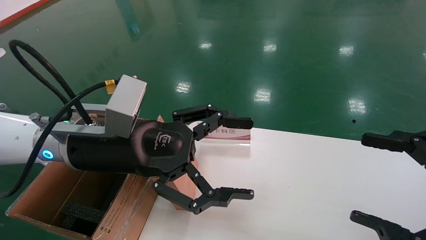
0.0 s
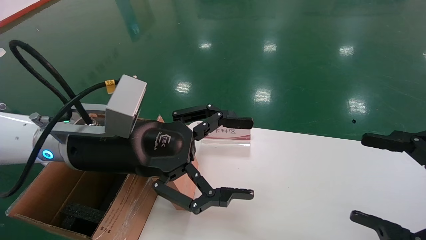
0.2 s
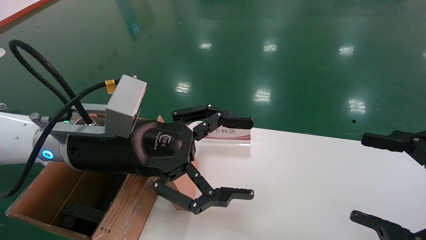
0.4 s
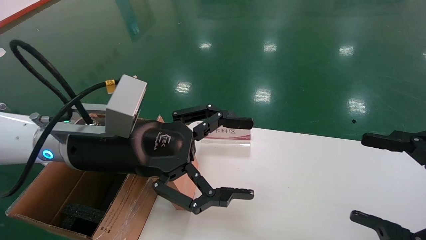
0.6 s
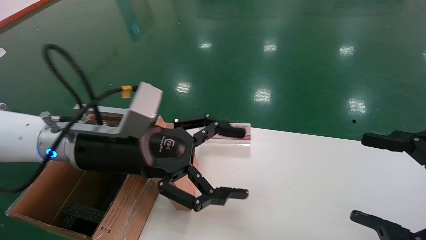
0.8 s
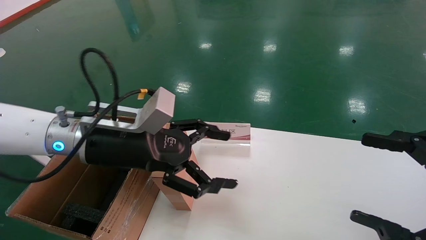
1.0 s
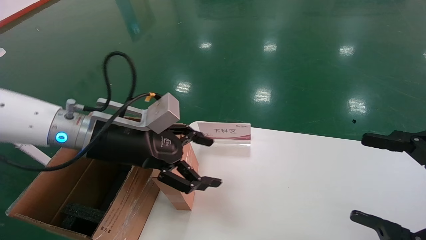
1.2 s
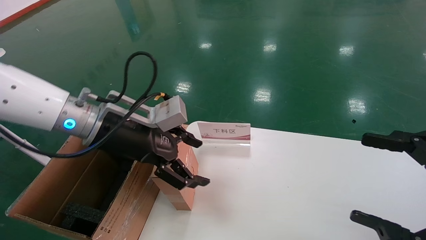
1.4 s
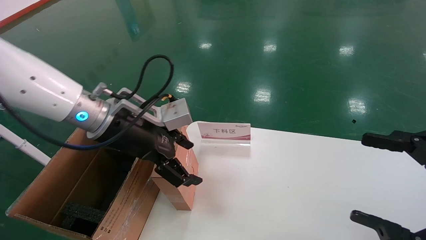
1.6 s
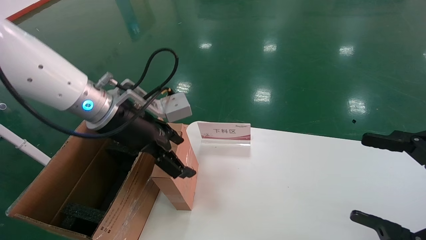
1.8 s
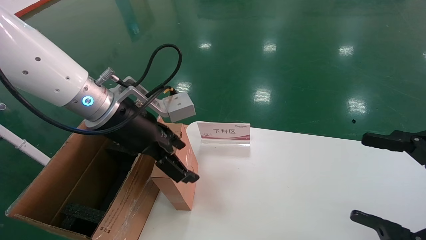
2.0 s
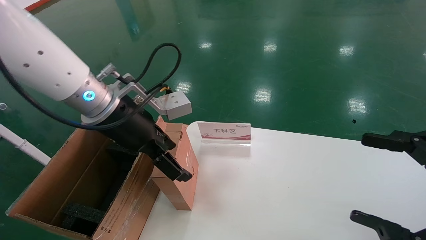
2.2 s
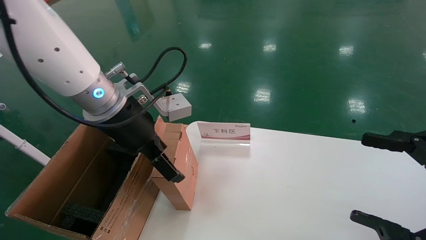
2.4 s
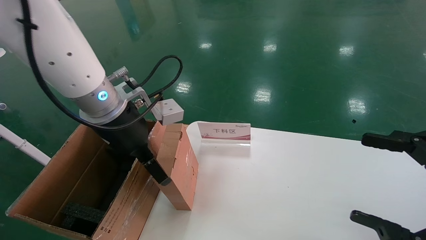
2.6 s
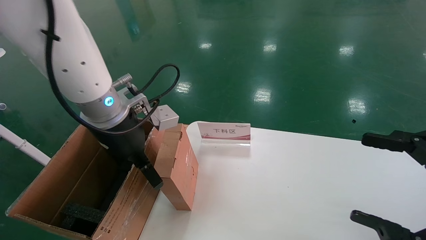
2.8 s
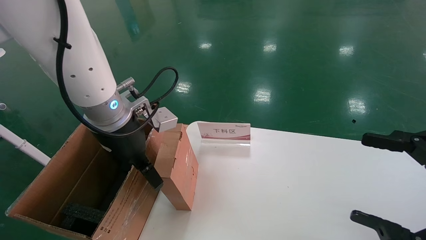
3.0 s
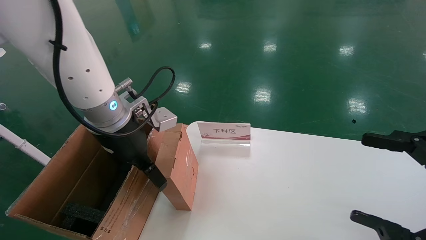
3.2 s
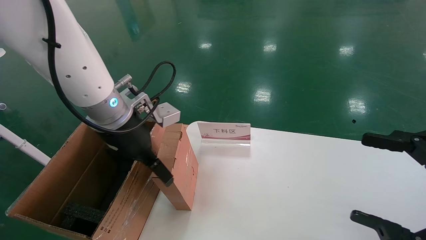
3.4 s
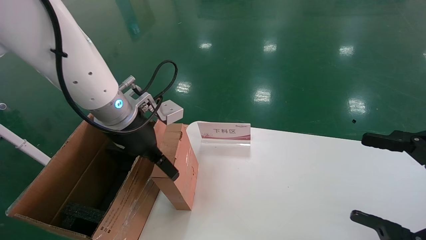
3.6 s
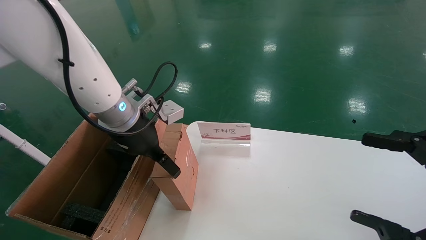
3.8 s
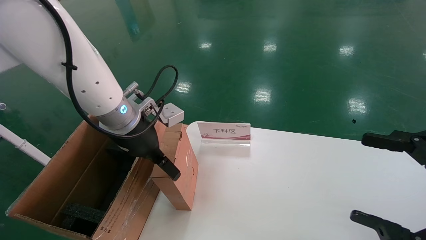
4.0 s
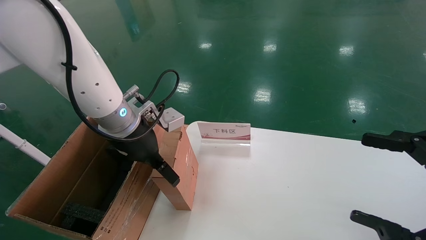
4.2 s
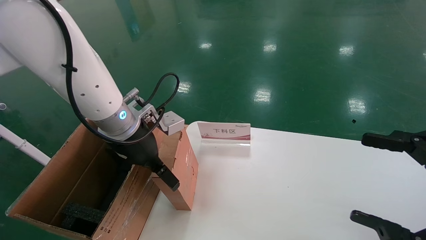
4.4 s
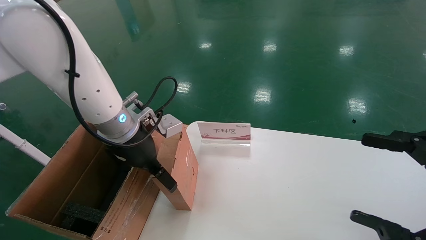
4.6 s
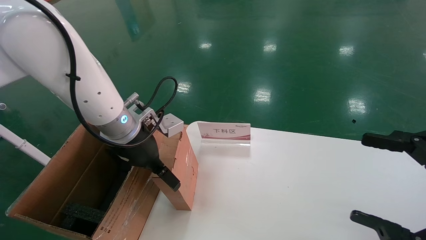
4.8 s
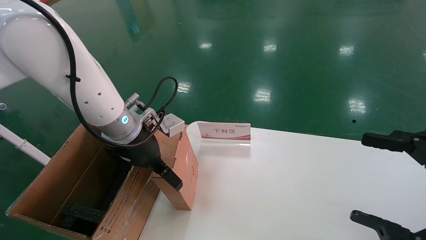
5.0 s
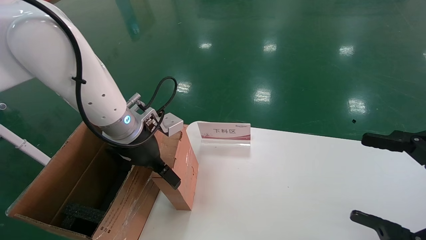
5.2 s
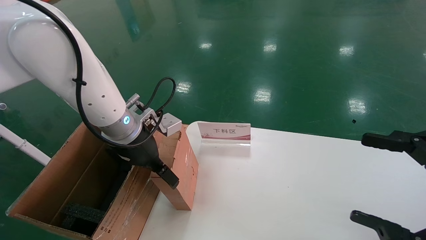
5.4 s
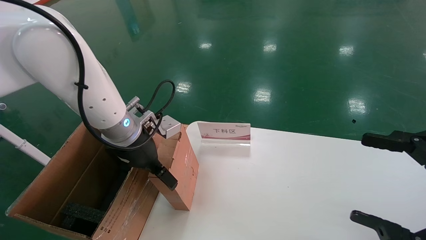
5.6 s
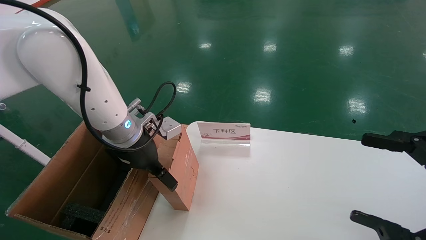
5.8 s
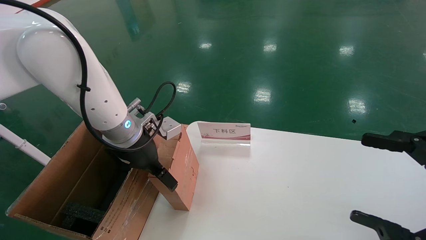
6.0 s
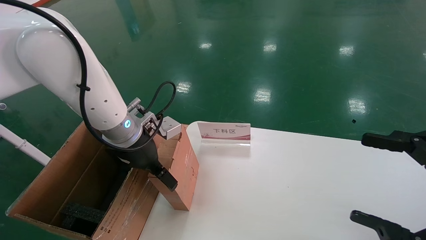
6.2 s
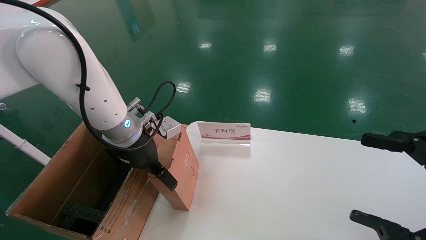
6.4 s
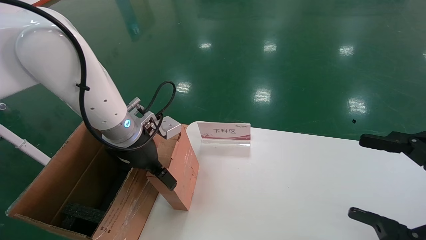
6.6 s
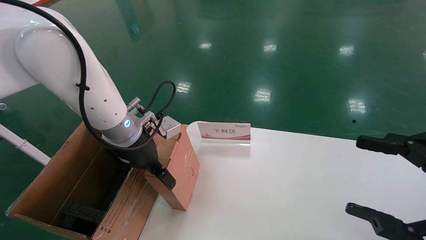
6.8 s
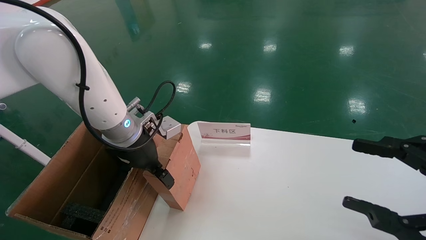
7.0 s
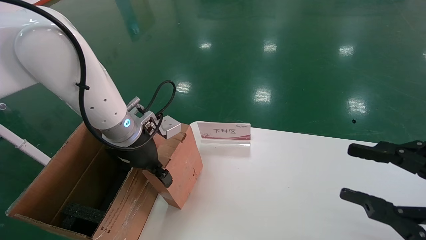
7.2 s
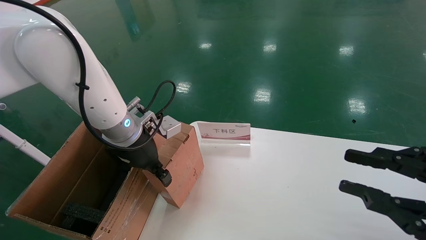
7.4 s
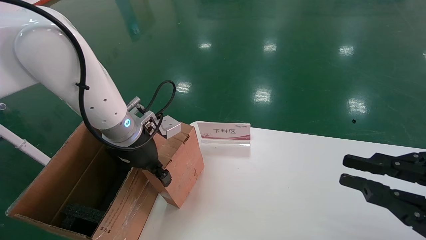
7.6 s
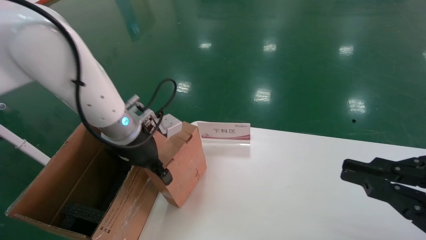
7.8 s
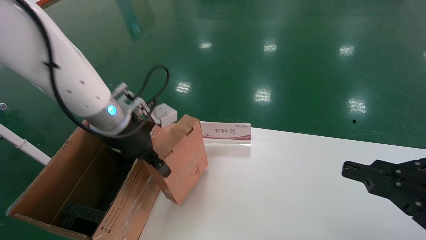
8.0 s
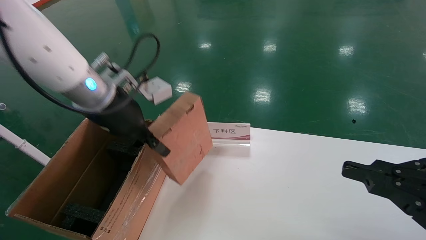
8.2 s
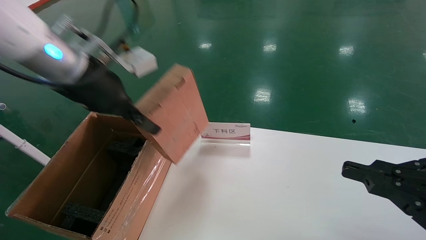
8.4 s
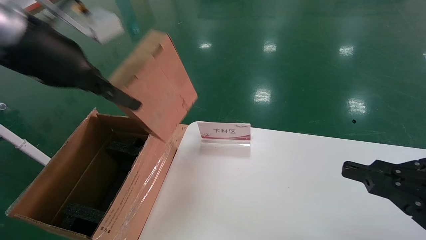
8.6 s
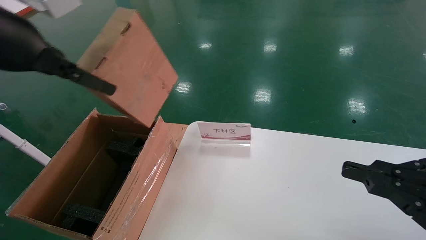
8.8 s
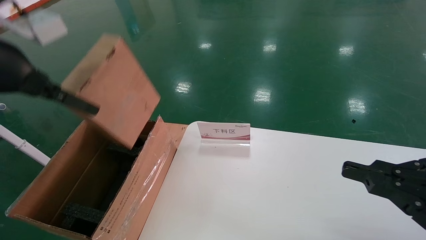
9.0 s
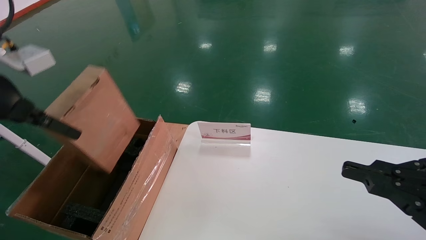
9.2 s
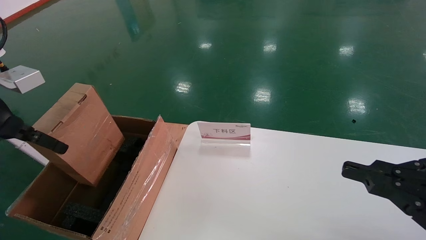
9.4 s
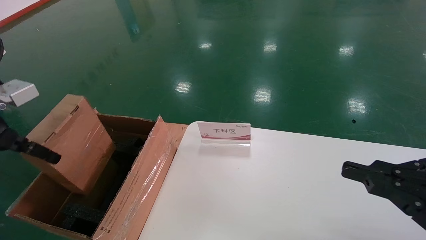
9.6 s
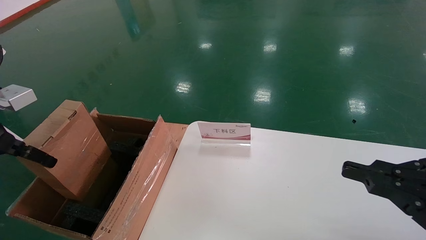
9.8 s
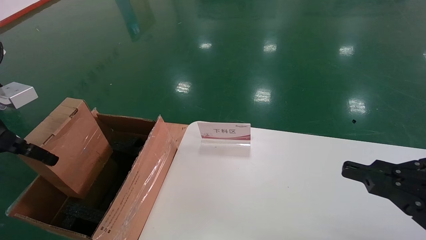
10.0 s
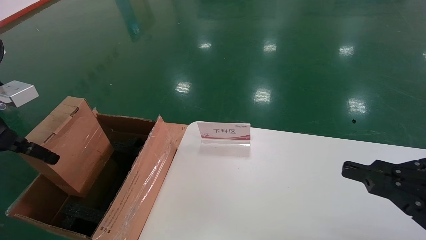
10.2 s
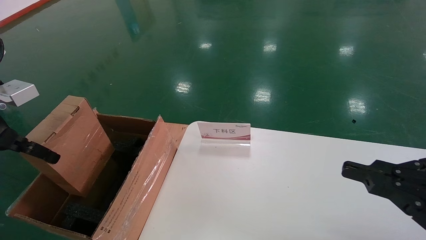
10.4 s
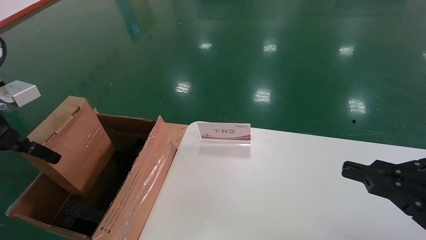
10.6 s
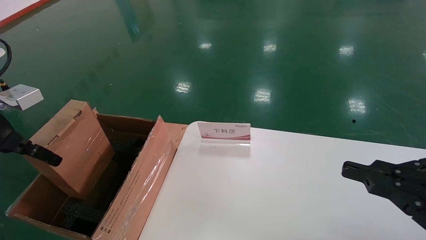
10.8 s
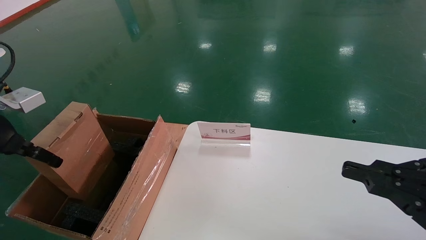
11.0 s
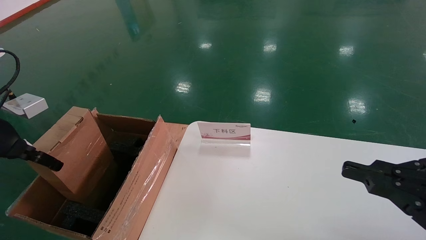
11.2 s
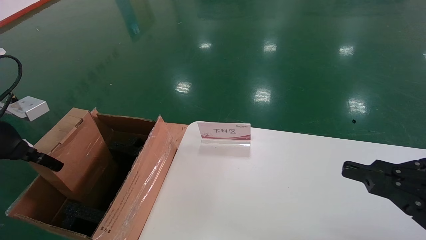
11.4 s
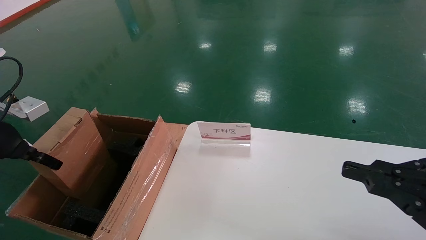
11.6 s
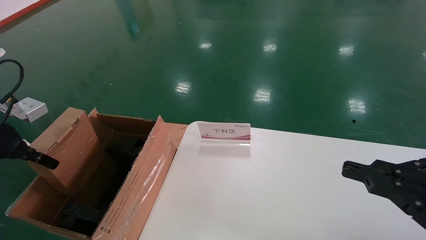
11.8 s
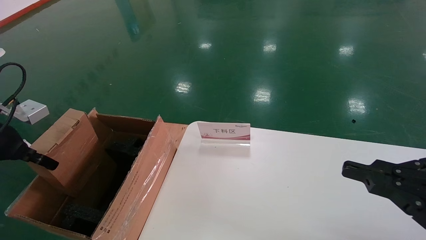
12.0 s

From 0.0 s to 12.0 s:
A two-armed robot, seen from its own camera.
Task of the whole recording: pick up the small cardboard box and load it into the large cardboard box.
Step, from 1.0 s to 7.2 s: Pick up the mouse and power cord box.
From 0.0 s to 1.6 s: The left gripper is displaced forward by roughly 5 cm.
From 3.0 s to 4.4 s: The grippers stay close to where they were, moving slightly.
From 4.4 s to 6.0 s: The grippers make only small movements.
From 6.0 s to 7.6 s: The right gripper closes; the left gripper closes.
From 7.6 s to 9.0 s: The left gripper is displaced upward, backward and to the left by roughly 25 cm.
From 9.0 s to 10.4 s: The left gripper goes roughly 10 cm downward and to the left.
From 10.4 s to 12.0 s: The left gripper goes roughly 5 cm downward.

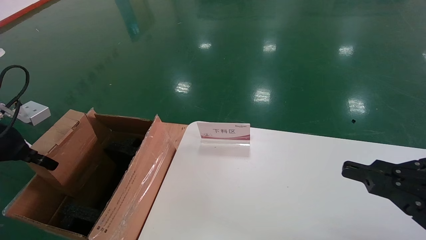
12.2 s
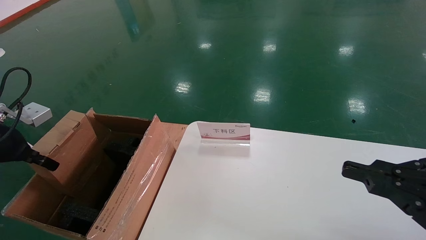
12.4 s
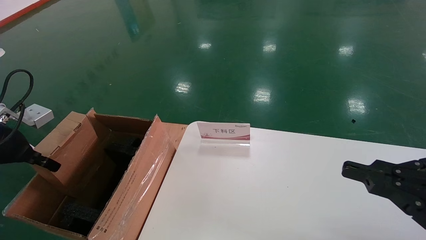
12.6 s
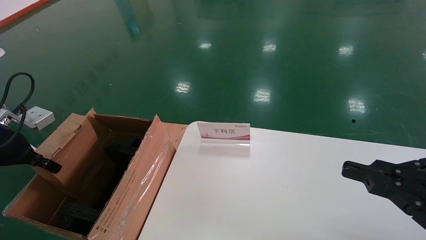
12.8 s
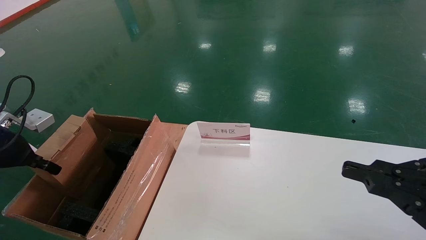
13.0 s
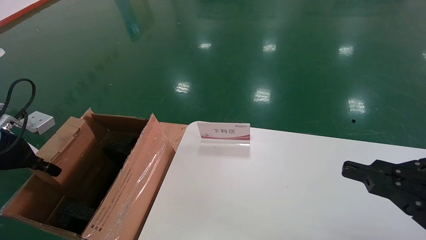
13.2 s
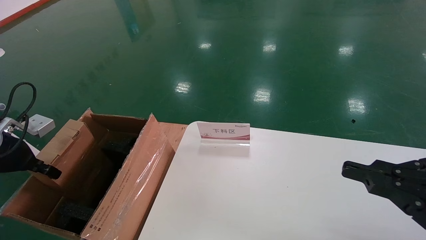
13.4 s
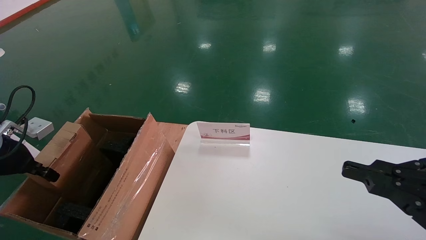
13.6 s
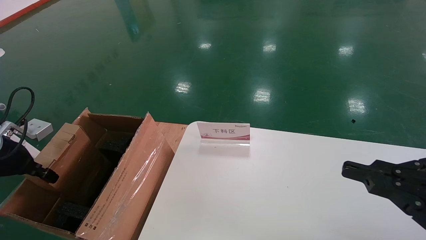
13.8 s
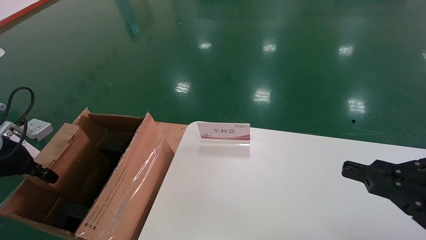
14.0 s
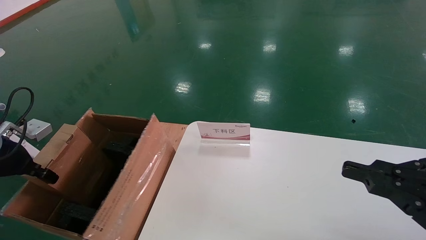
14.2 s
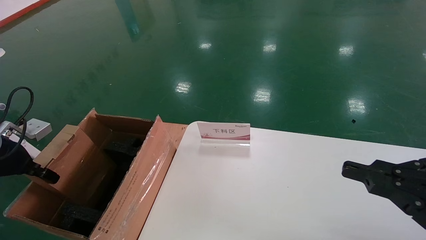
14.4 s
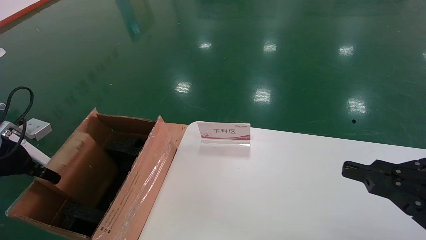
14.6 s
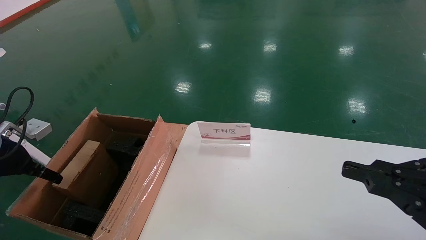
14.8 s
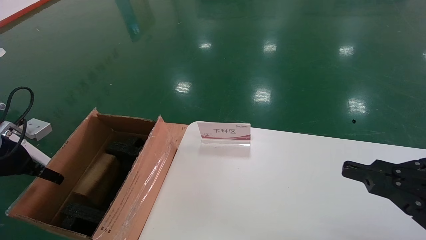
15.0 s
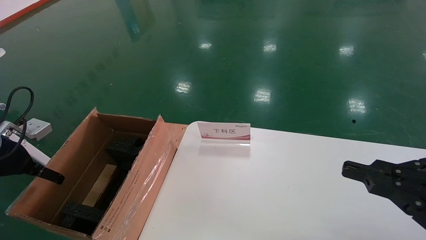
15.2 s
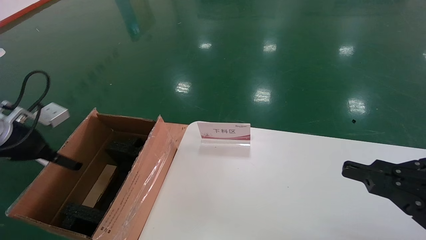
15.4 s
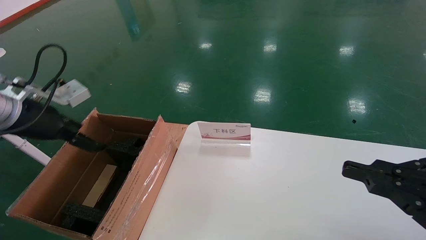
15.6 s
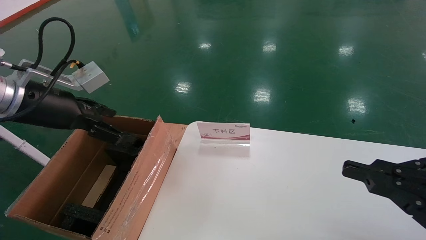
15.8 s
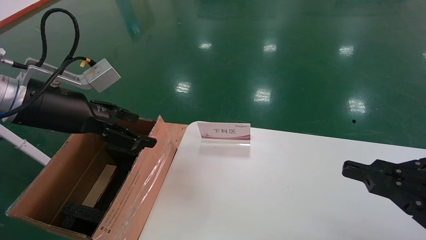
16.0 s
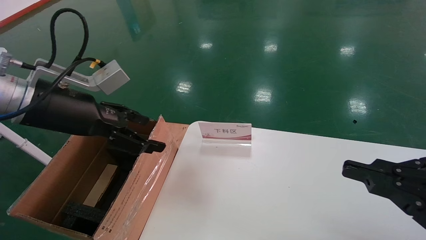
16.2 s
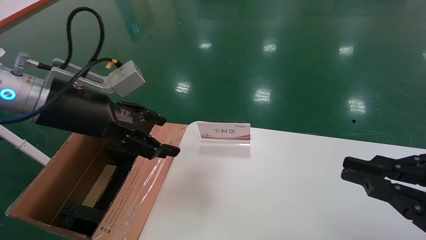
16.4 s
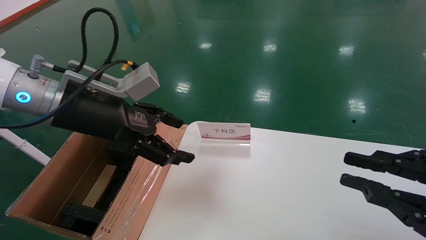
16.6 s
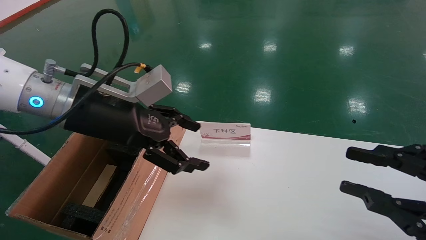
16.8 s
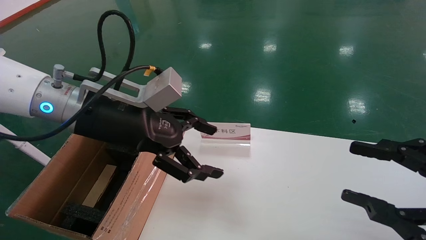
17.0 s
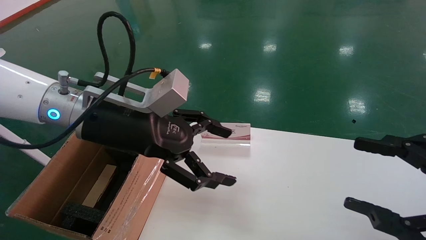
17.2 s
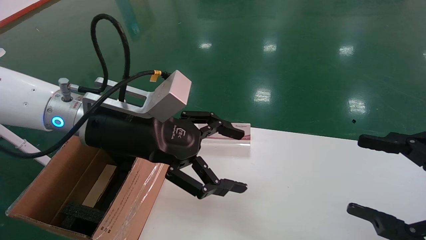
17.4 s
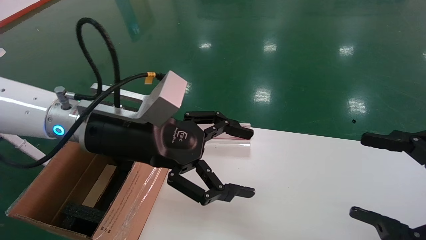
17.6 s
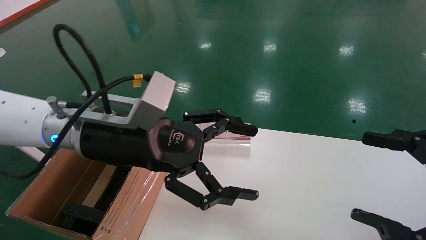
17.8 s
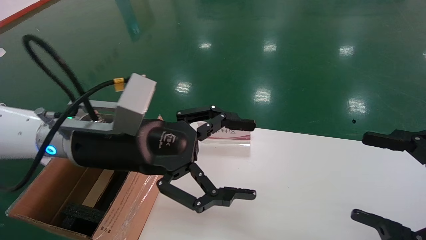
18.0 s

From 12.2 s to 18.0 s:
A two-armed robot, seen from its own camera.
Task of the whole recording: pick up the small cardboard box and load it into the large cardboard box.
Step, from 12.2 s to 14.6 s: Place the mouse and power cord box into the case.
From 12.2 s to 13.6 s: The grippers stay close to where they were, moving slightly.
From 13.6 s to 15.0 s: The left gripper opens its fingers.
From 15.0 s to 16.6 s: The left gripper goes some 25 cm to the right and upward.
From 16.6 s to 18.0 s: The right gripper opens its fingers. The left gripper moves to the right, about 5 cm.
